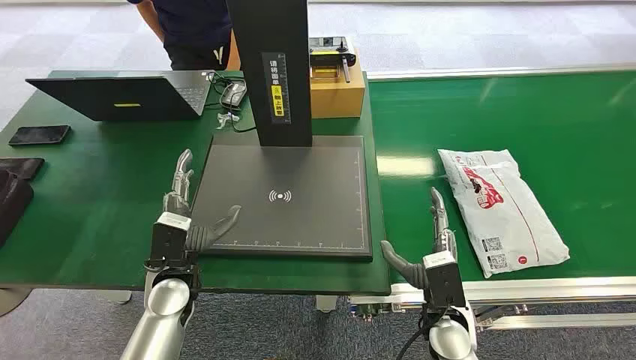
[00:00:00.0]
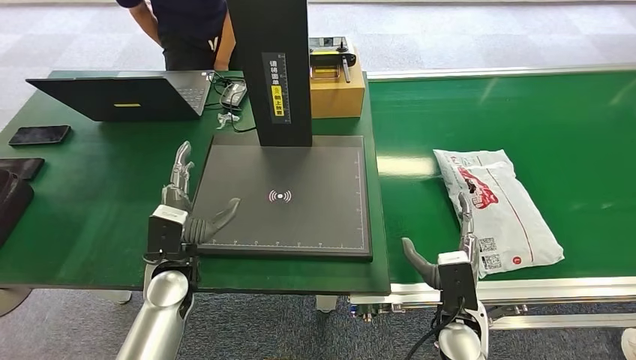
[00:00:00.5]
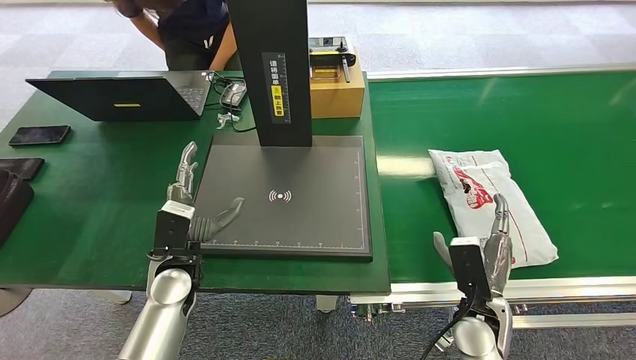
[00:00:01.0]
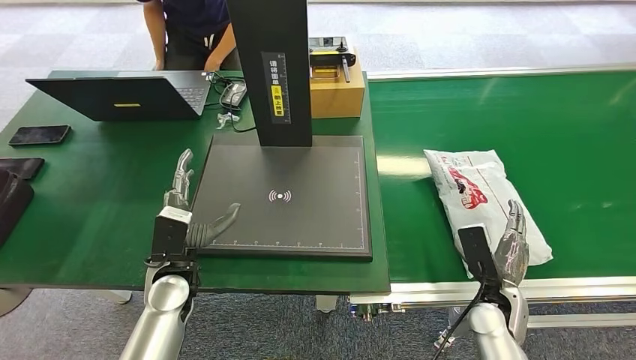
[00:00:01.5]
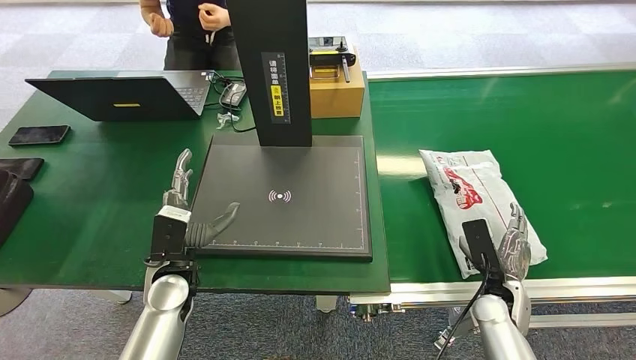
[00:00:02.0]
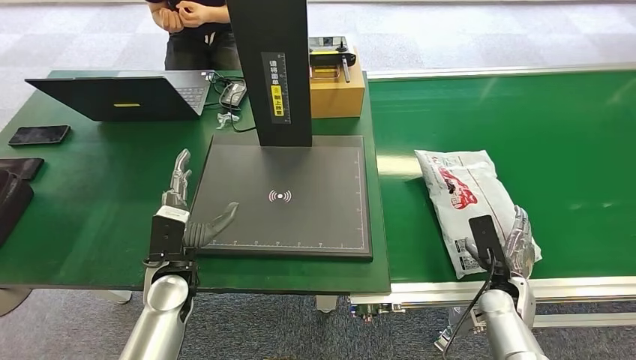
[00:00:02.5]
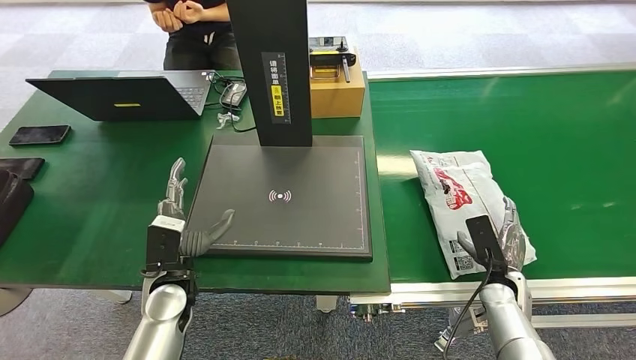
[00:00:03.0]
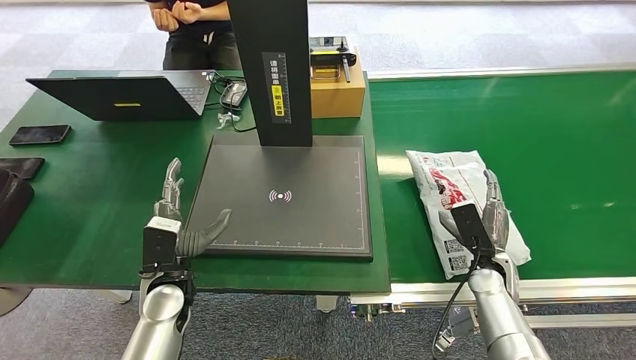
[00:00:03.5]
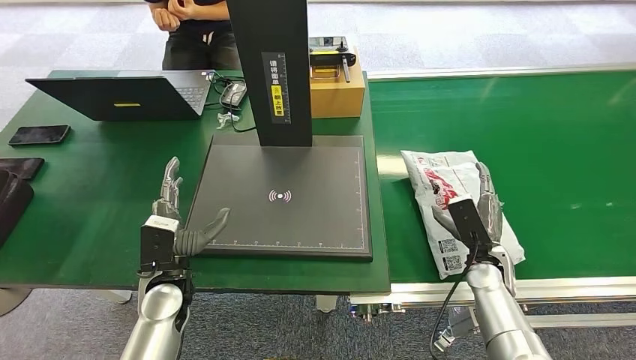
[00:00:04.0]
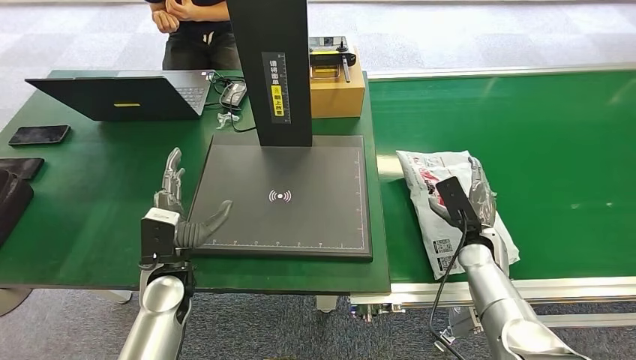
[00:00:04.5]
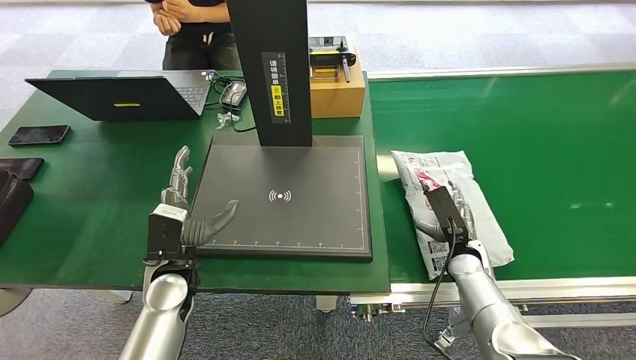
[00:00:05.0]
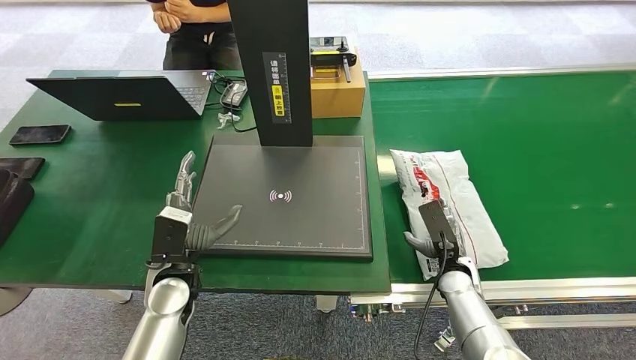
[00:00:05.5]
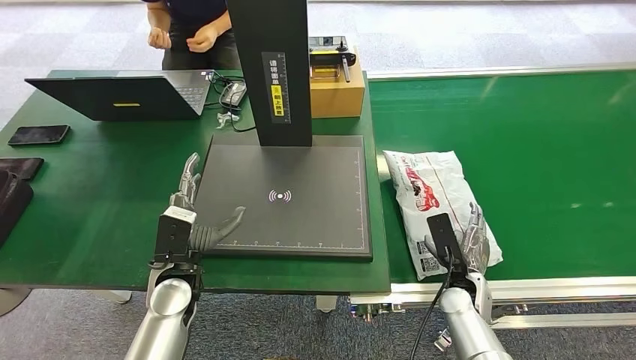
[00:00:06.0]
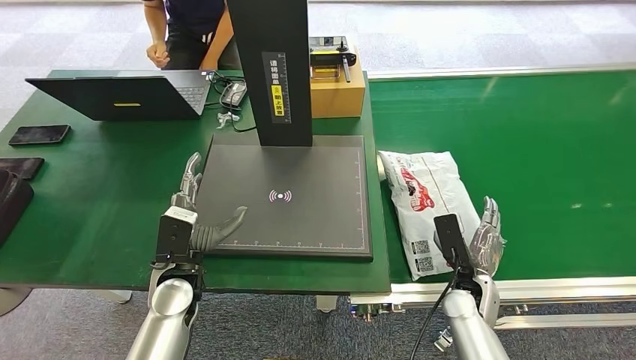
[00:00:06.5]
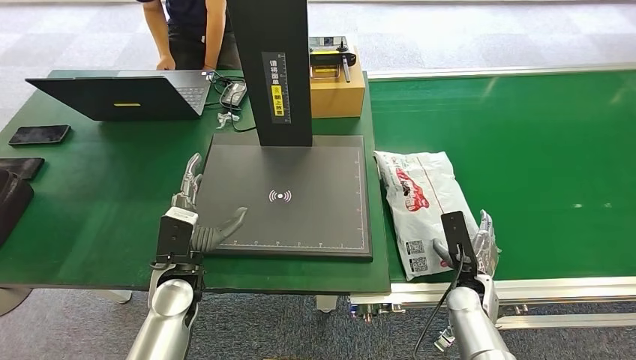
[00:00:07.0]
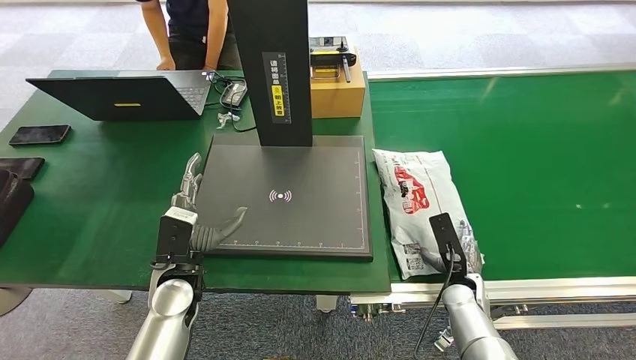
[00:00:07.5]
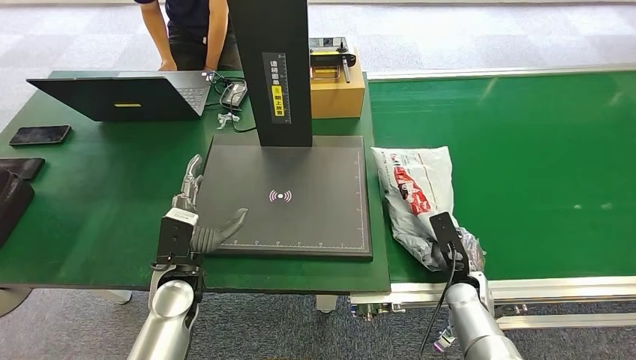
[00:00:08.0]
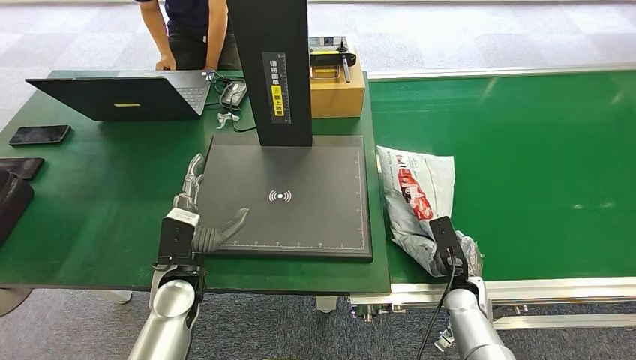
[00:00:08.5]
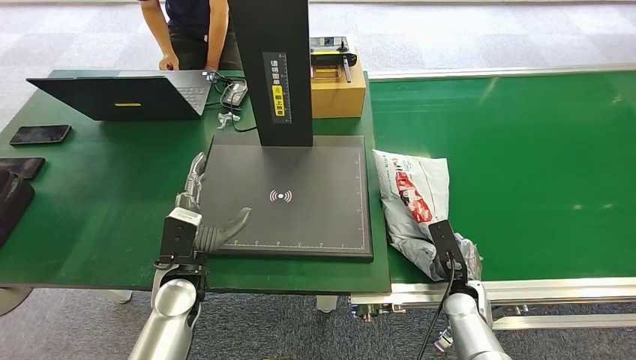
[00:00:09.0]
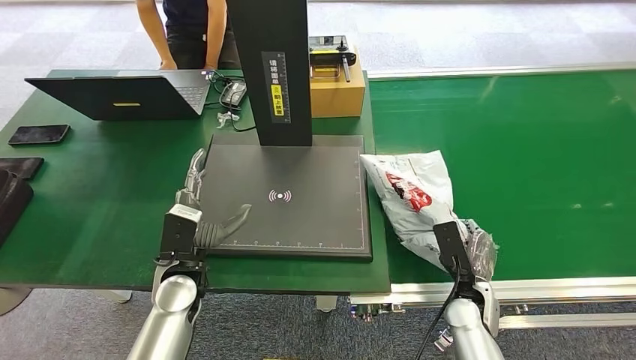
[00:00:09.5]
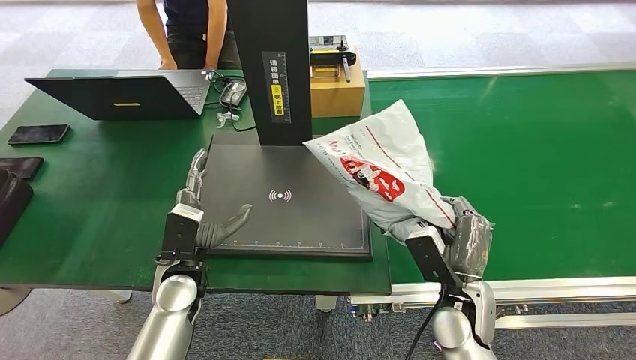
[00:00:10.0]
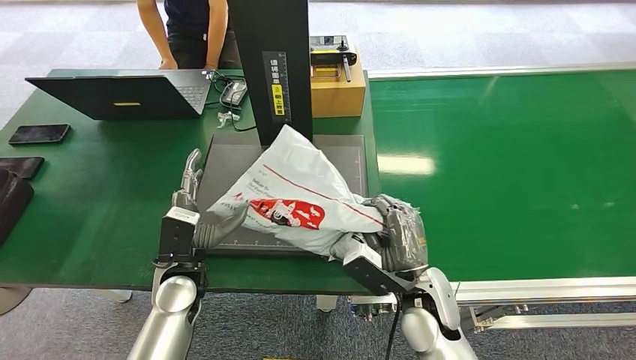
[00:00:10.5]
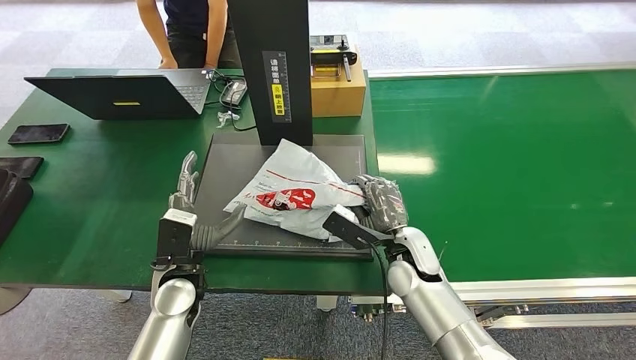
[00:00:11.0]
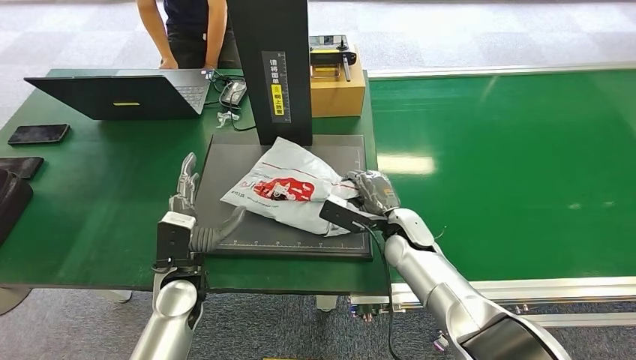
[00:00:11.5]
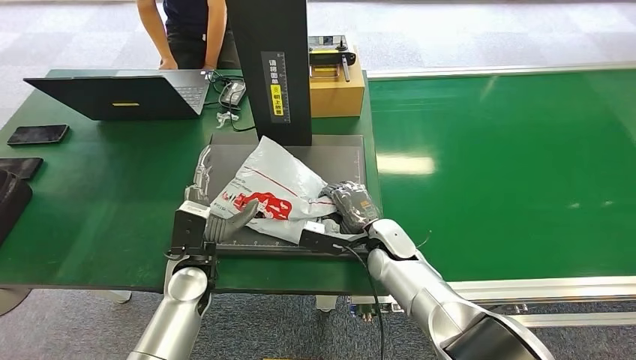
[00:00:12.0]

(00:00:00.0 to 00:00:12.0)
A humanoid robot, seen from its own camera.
Step, 00:00:00.0 - 00:00:10.0: Pick up the package from the conveyor belt.
00:00:02.0 - 00:00:04.0: The right hand heads forward, covering roughly 5 cm.
00:00:04.0 - 00:00:06.0: The right hand ends up about 5 cm from where it was.
00:00:08.0 - 00:00:10.0: The right hand moves upward, to the left and backward, some 15 cm.
00:00:10.0 - 00:00:12.0: The right hand travels forward and to the left by some 15 cm.

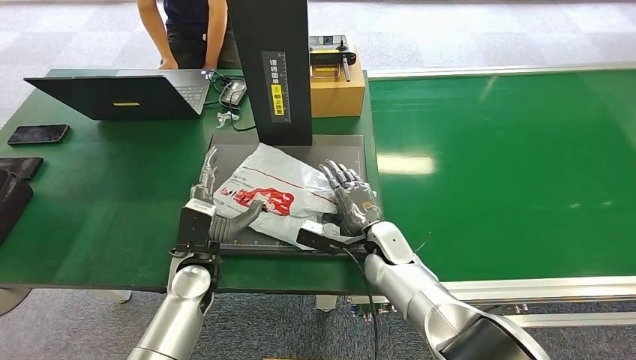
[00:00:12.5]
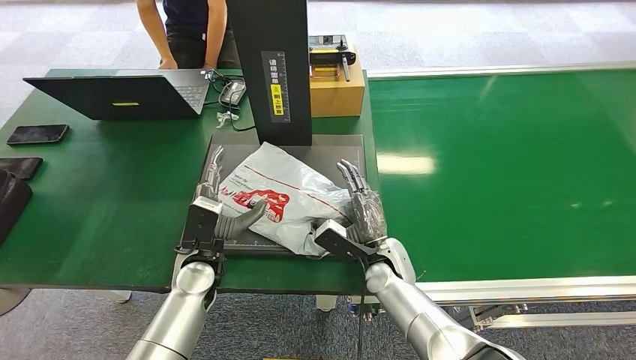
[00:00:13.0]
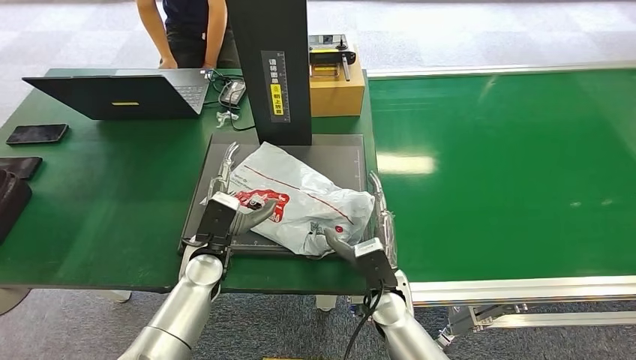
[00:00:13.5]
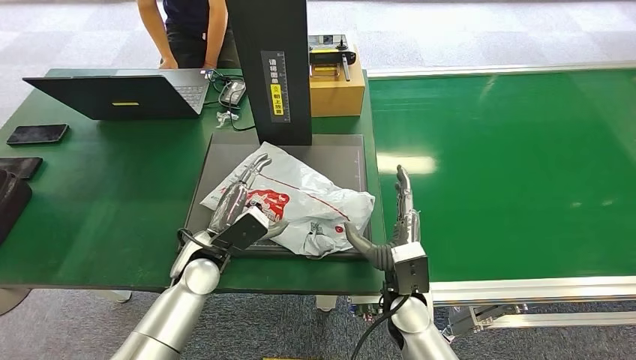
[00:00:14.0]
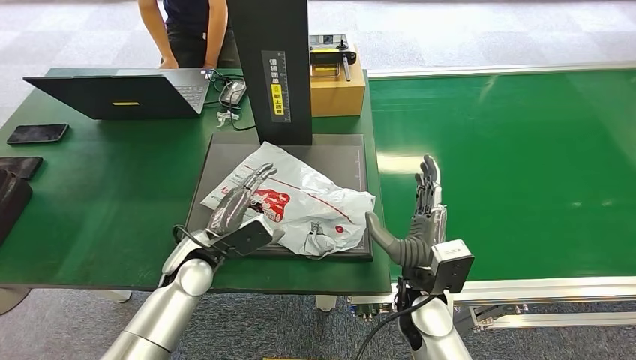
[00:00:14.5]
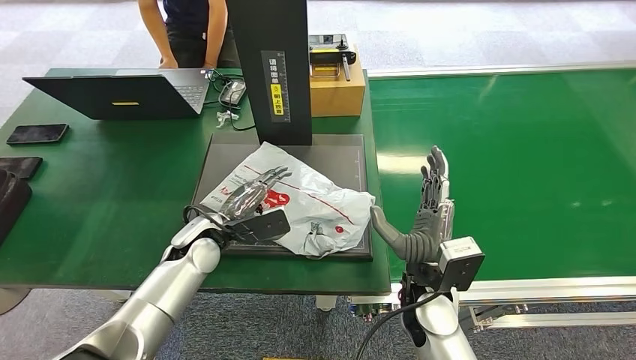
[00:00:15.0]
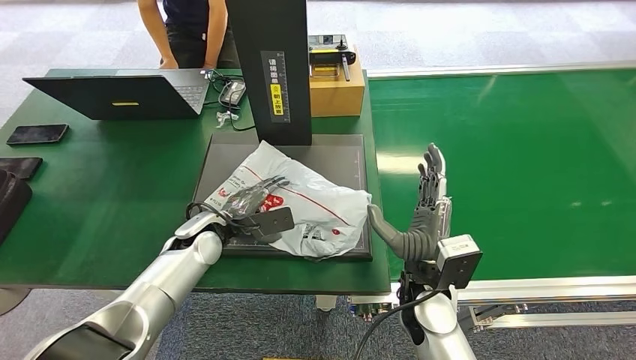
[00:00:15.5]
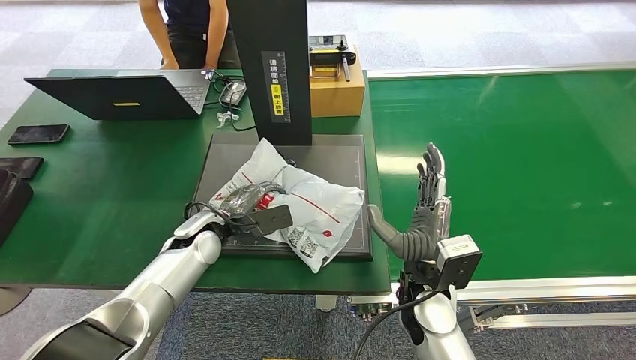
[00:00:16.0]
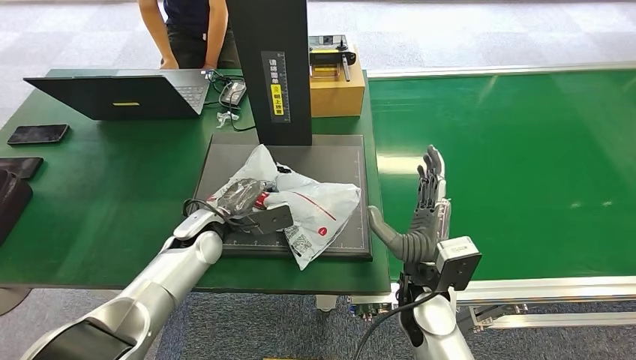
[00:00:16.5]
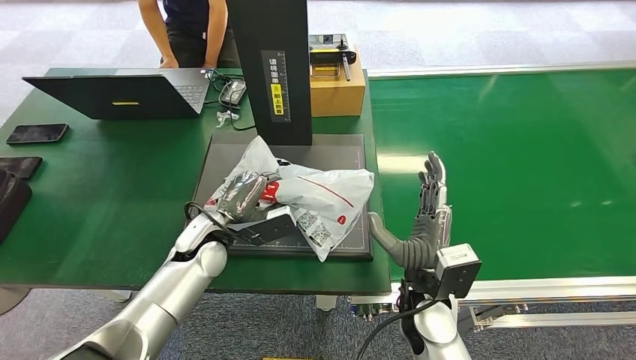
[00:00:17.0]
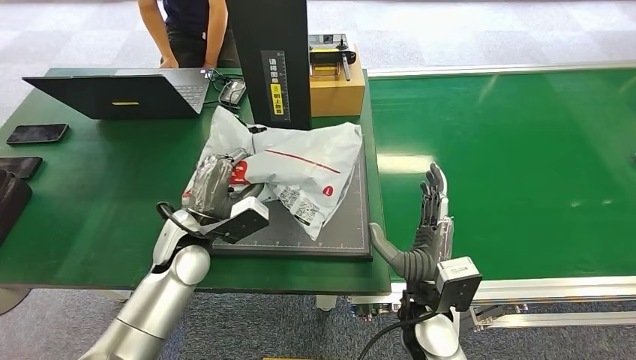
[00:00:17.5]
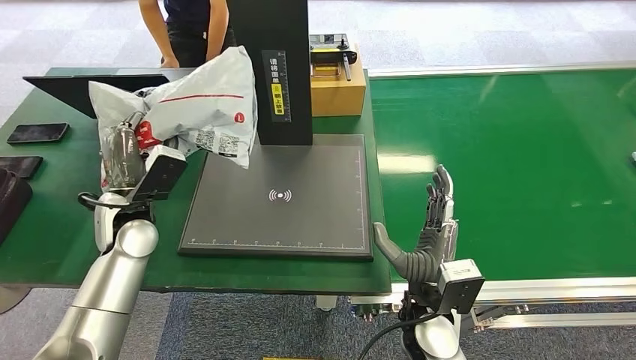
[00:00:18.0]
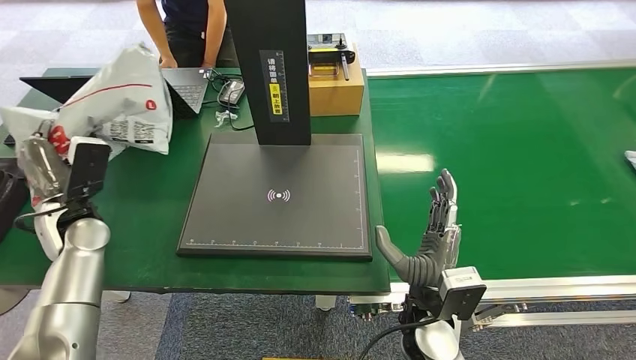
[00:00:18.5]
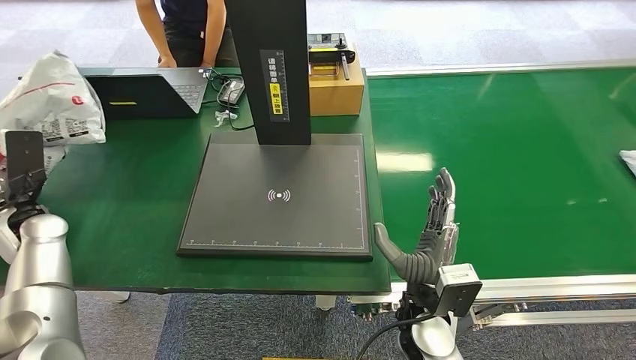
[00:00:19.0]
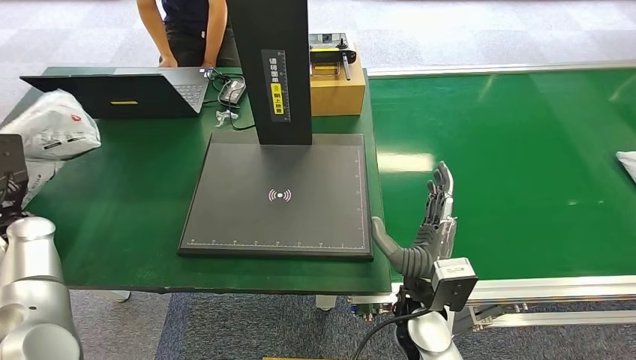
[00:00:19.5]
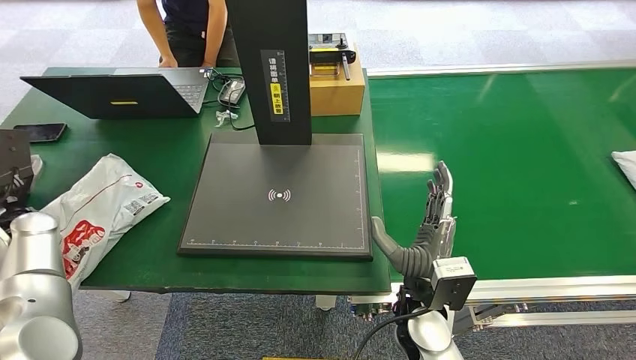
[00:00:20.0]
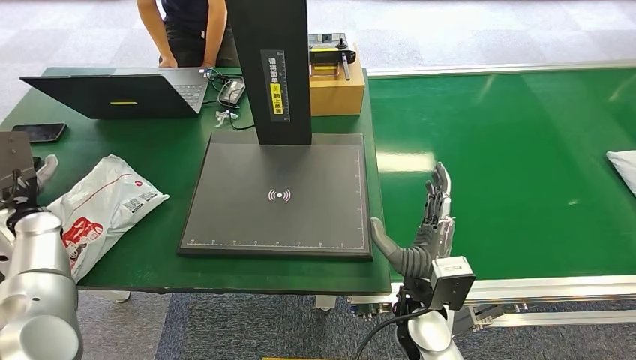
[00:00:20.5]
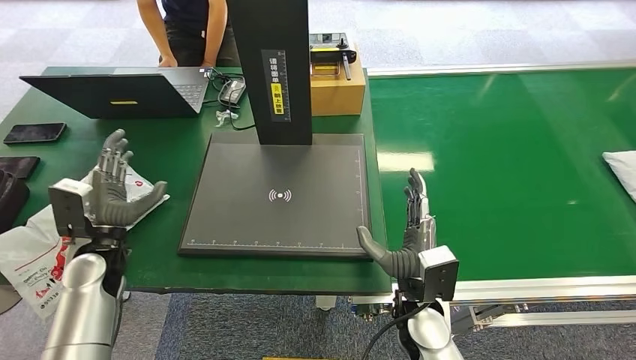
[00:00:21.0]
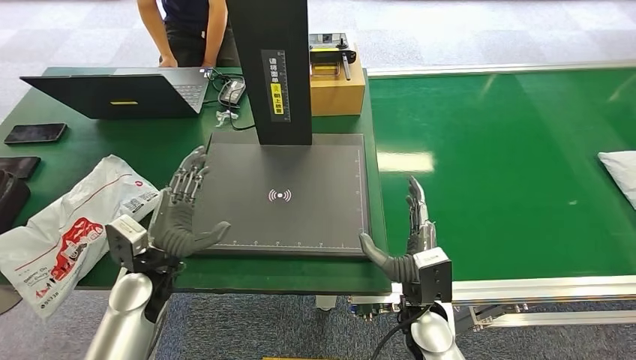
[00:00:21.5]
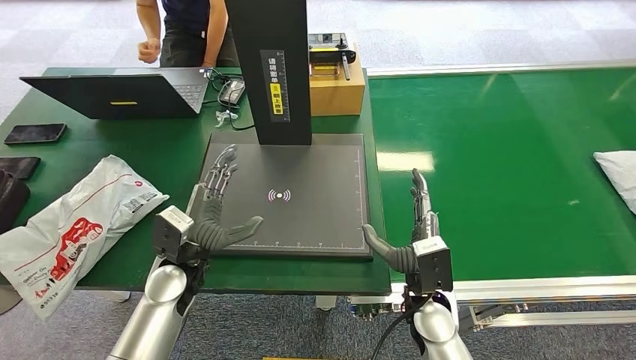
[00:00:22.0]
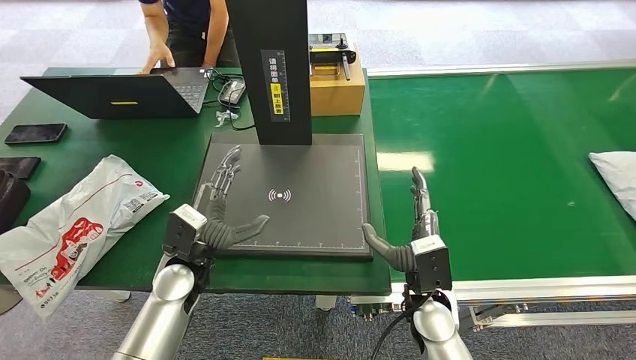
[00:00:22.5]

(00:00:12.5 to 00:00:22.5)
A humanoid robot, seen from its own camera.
Step, 00:00:14.0 - 00:00:17.5: Pick up the package from the inbound machine.
Step, 00:00:18.0 - 00:00:22.5: Place the package into the parcel locker.
00:00:12.5 - 00:00:14.5: The right hand shifts some 10 cm backward.
00:00:14.5 - 00:00:16.5: The left hand heads forward, covering about 5 cm.
00:00:18.5 - 00:00:20.5: The left hand heads to the left, covering about 10 cm.
00:00:20.5 - 00:00:22.5: The left hand travels to the right by some 25 cm.
